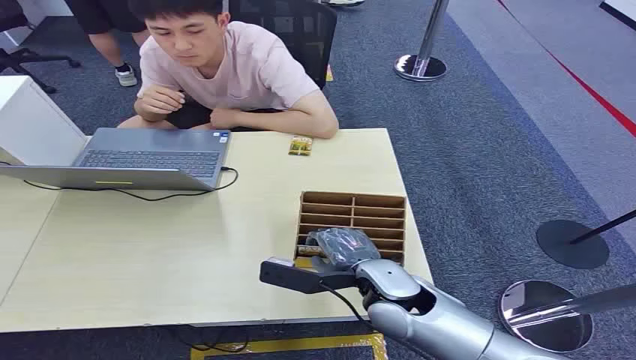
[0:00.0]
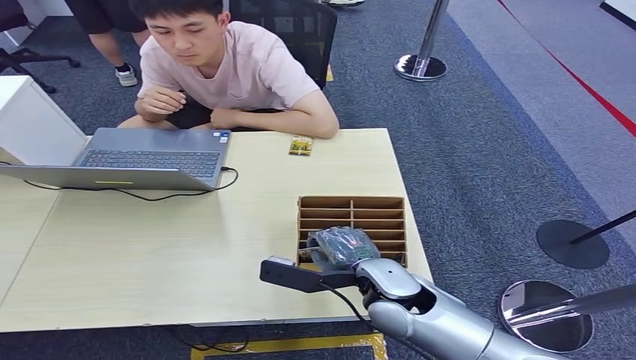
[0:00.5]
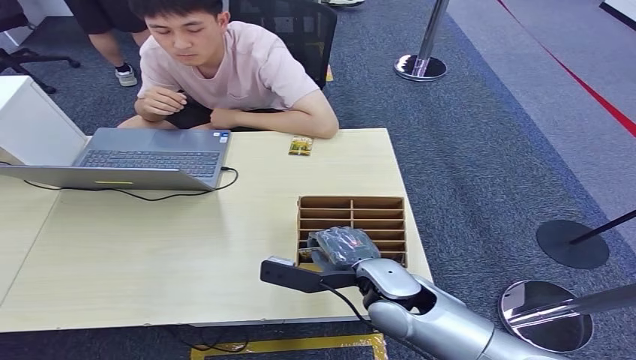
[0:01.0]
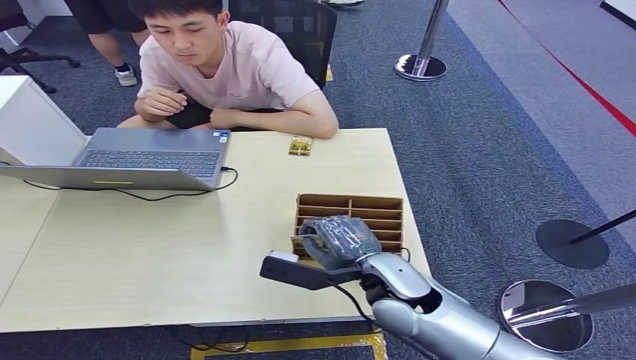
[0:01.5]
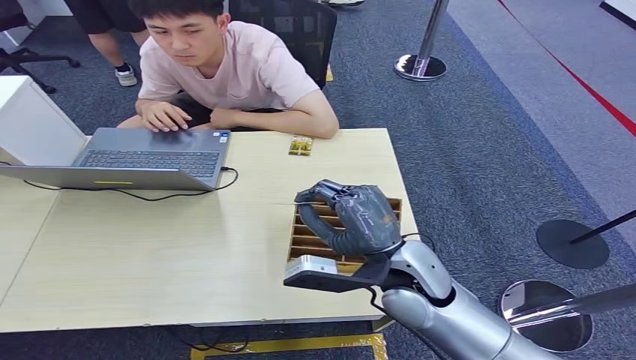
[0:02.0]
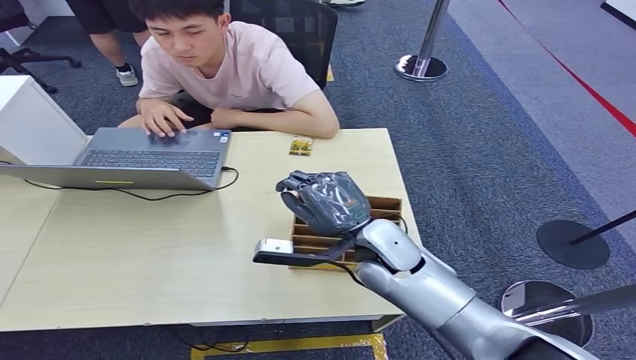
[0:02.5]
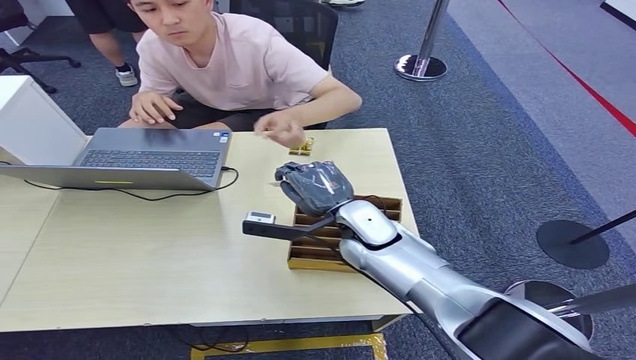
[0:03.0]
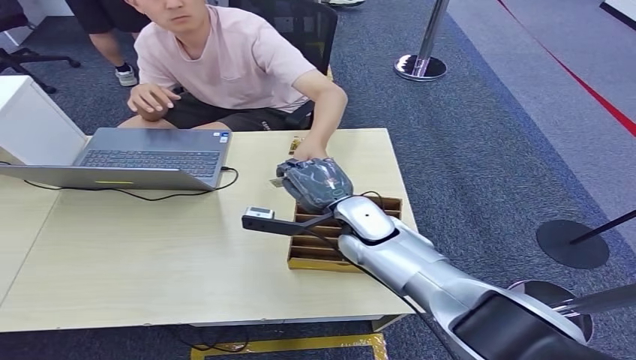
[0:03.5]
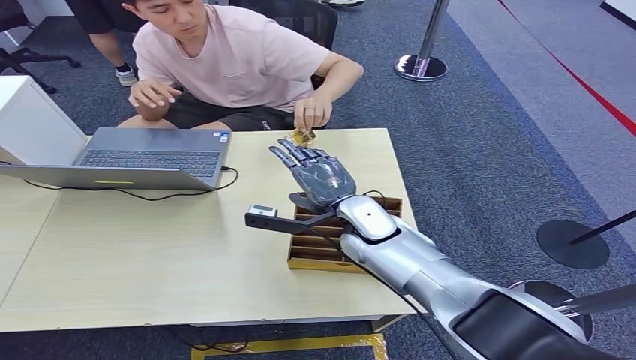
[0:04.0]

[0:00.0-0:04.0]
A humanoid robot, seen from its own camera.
Step, 0:00.0 to 0:02.0: Pick up the room card from the card holder.
Step, 0:02.5 to 0:04.0: Hand the room card to the target.
0:02.0 to 0:04.0: The right hand heads forward, covering some 10 cm.

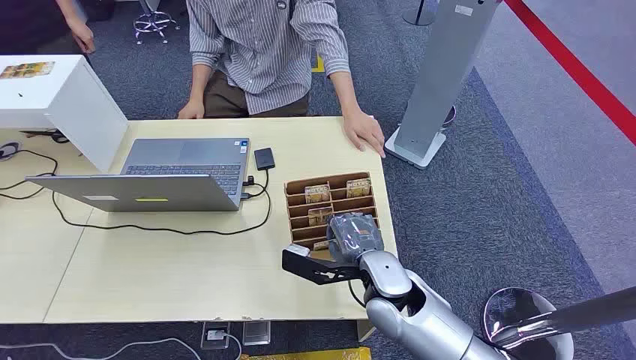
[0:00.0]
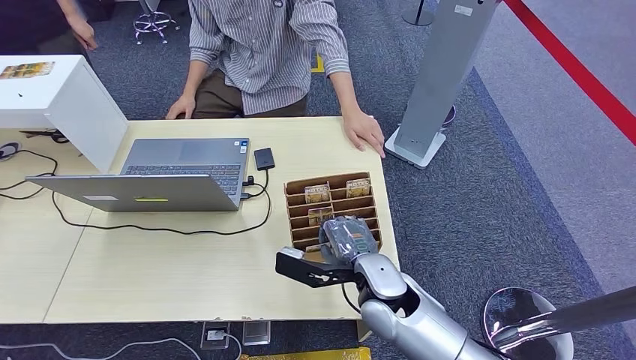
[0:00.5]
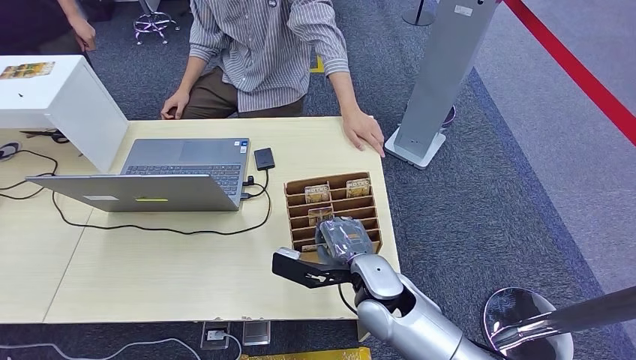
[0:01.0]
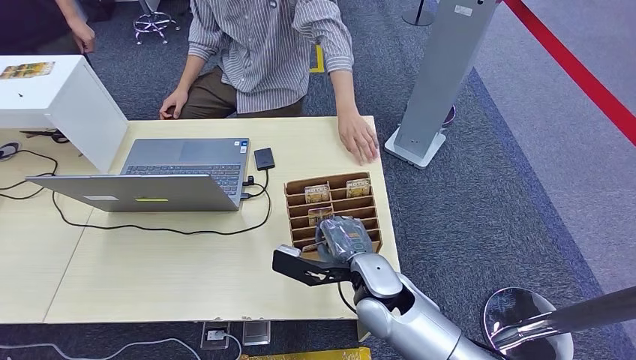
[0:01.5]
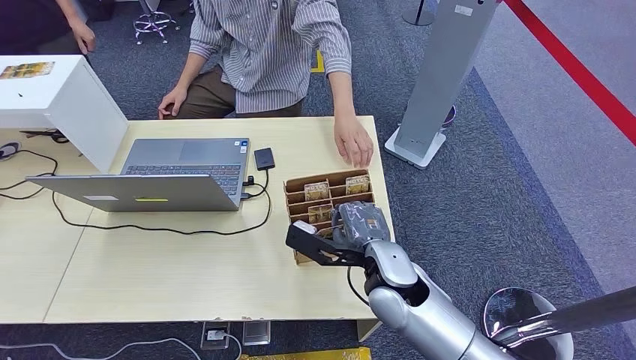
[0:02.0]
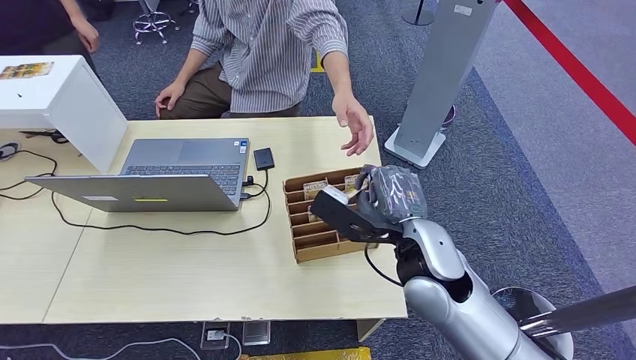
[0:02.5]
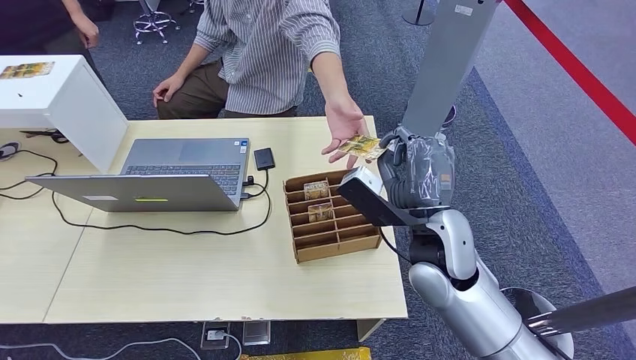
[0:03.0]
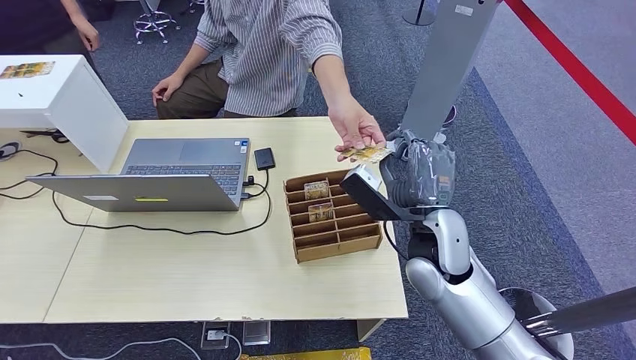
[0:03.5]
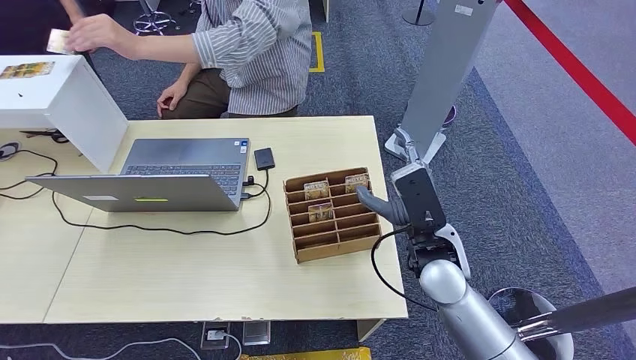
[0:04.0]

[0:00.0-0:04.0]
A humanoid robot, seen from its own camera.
Step, 0:00.0 to 0:02.0: Pick up the room card from the card holder.
Step, 0:03.0 to 0:04.0: Hand the room card to the target.
0:02.0 to 0:04.0: The right hand travels to the right by some 5 cm.
